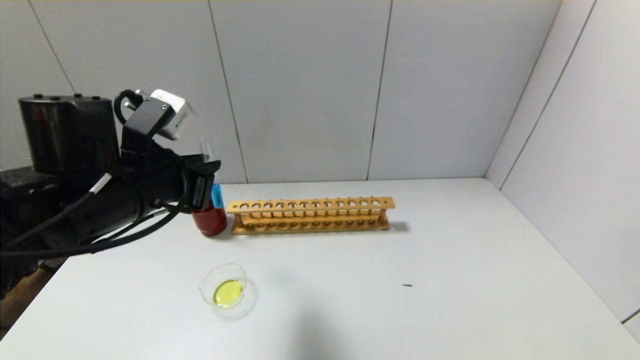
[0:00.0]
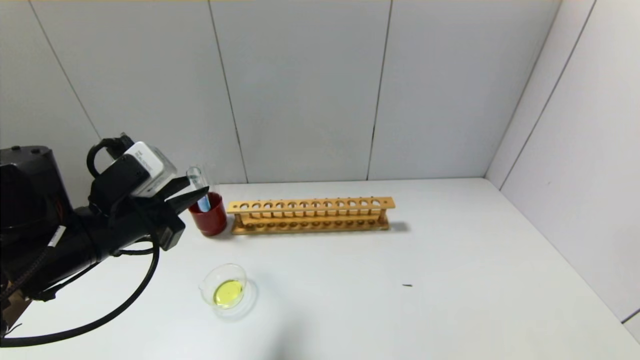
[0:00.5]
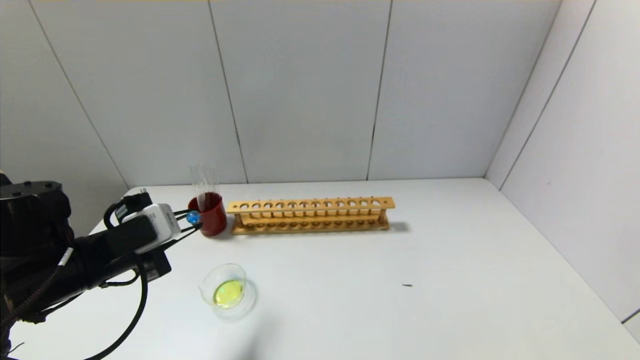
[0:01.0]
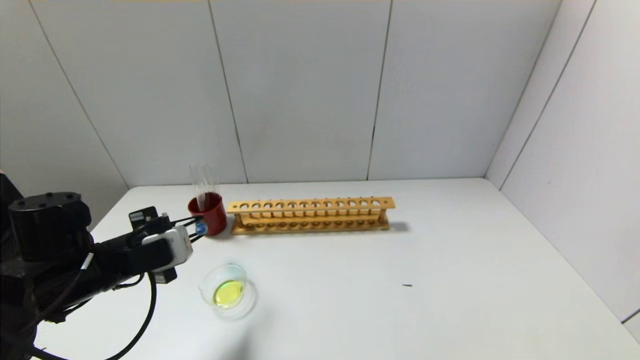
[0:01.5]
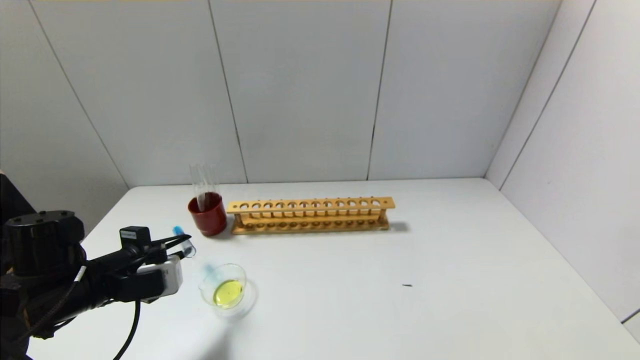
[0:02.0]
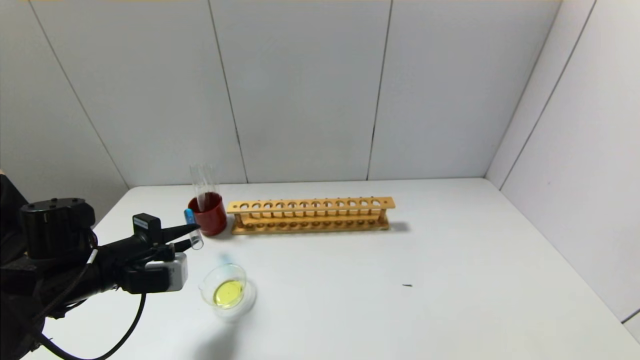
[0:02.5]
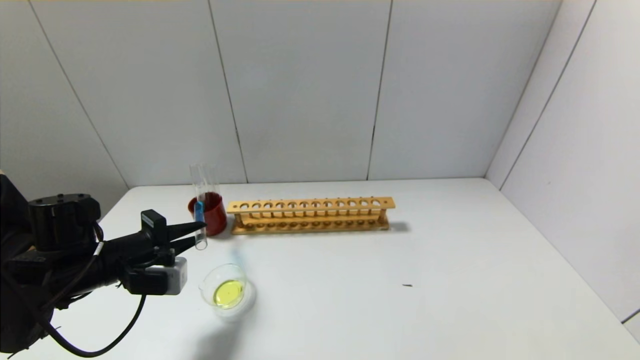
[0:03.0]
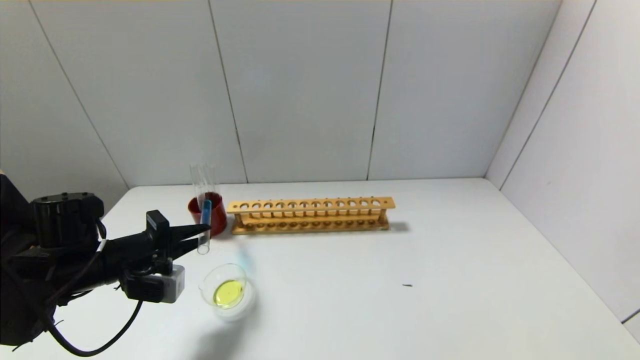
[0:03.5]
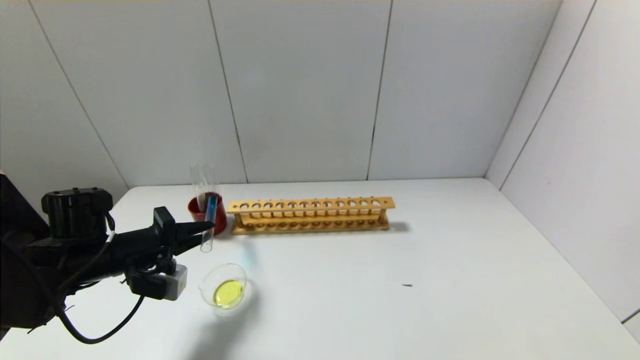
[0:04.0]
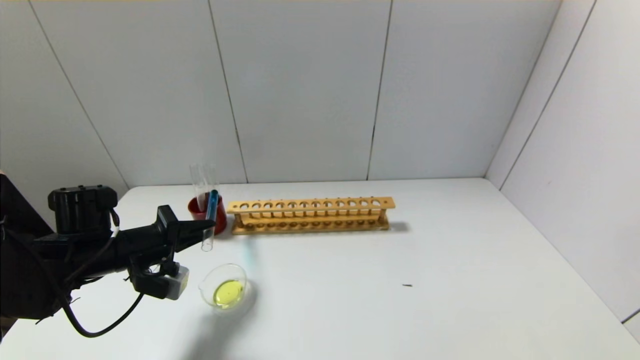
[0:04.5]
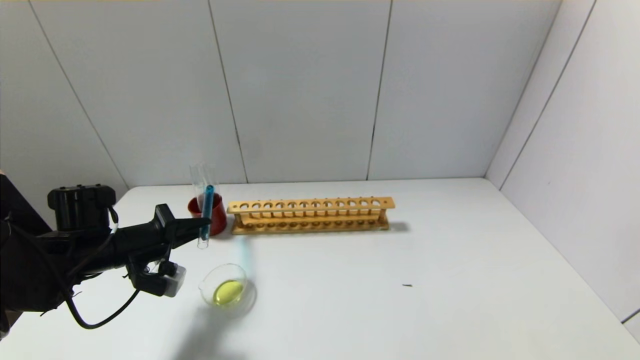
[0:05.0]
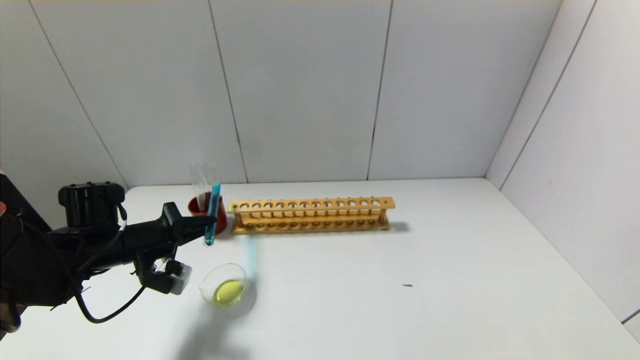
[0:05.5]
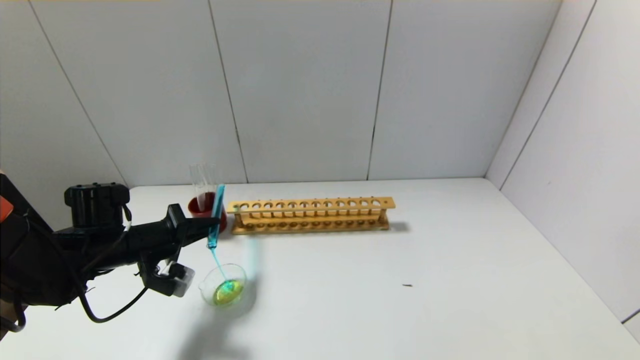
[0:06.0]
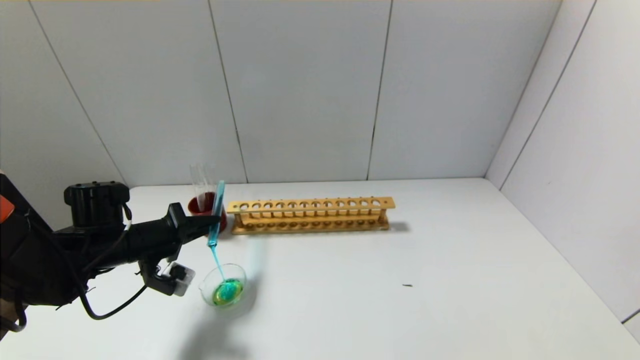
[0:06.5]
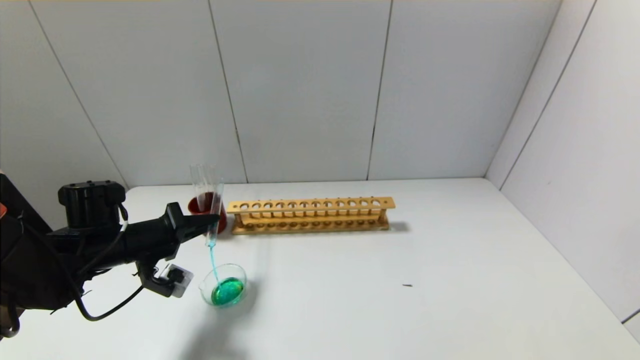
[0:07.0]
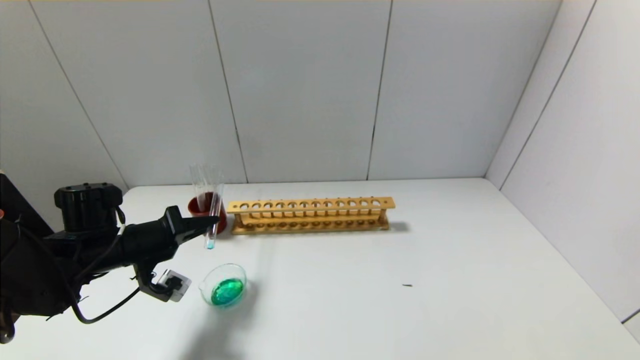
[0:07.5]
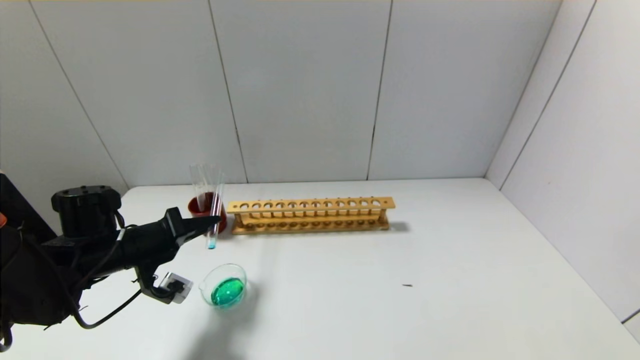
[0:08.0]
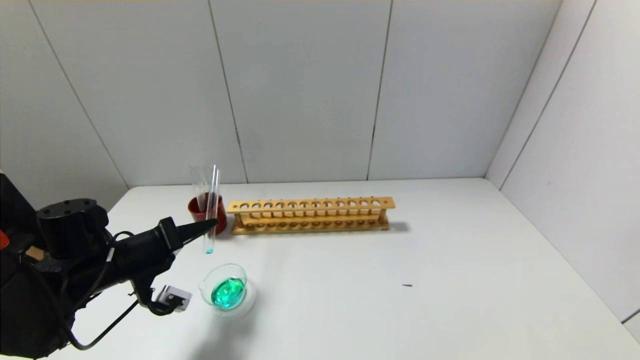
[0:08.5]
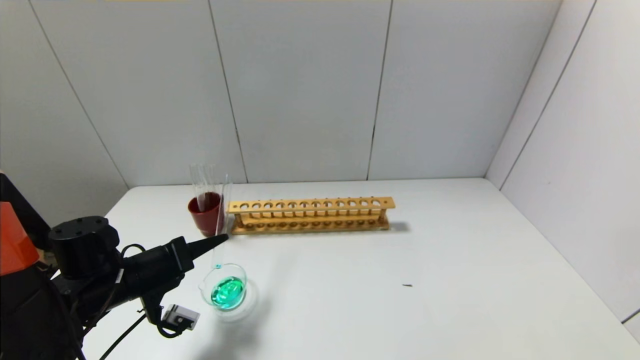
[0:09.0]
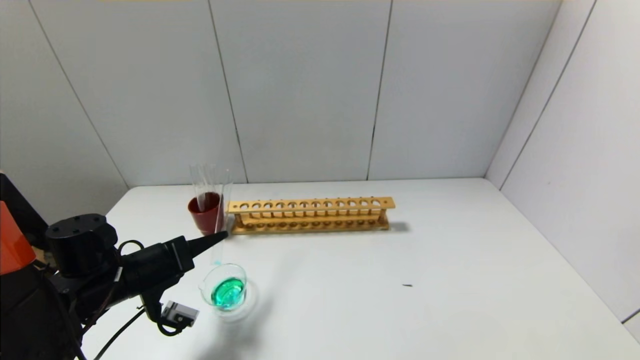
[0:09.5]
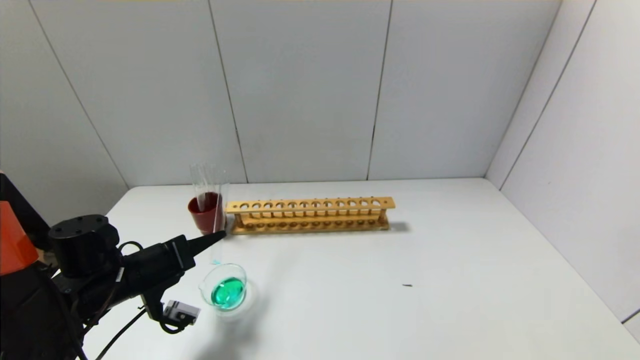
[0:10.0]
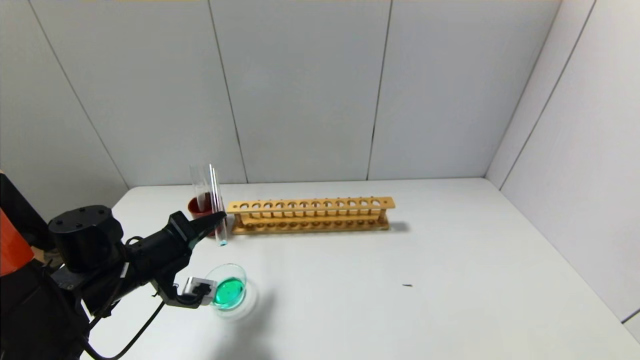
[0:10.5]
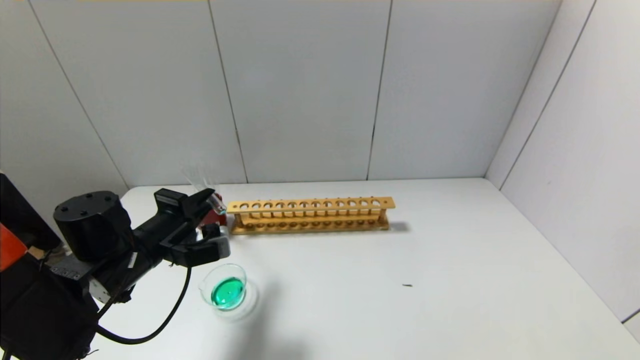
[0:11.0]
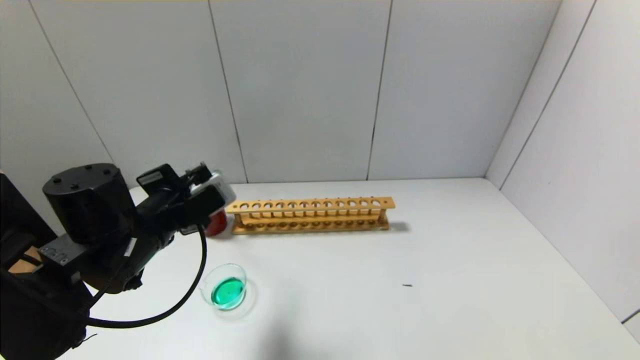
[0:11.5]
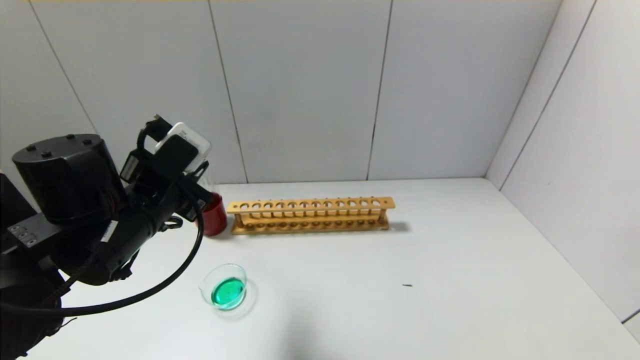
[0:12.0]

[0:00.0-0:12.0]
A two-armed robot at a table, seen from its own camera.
Step, 0:00.0 to 0:10.5: Pour the blue reagent into the graduated cylinder with the left gripper.
0:00.0 to 0:02.0: The left gripper moves downward and to the left, roughly 15 cm.
0:02.0 to 0:04.0: The left gripper shifts roughly 5 cm forward.
0:04.0 to 0:06.0: There are only small adjustments of the grippers.
0:06.0 to 0:08.0: The grippers stay close to where they were, moving slightly.
0:08.0 to 0:10.0: The grippers stay close to where they were, moving slightly.
0:10.0 to 0:12.0: The left gripper is displaced upward and to the right by approximately 15 cm.

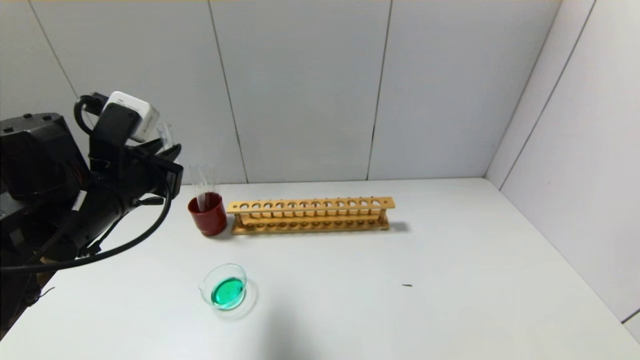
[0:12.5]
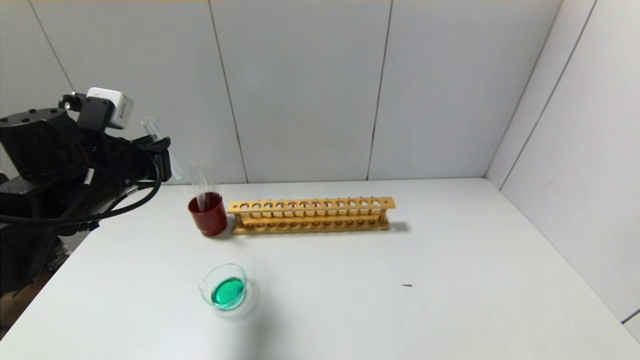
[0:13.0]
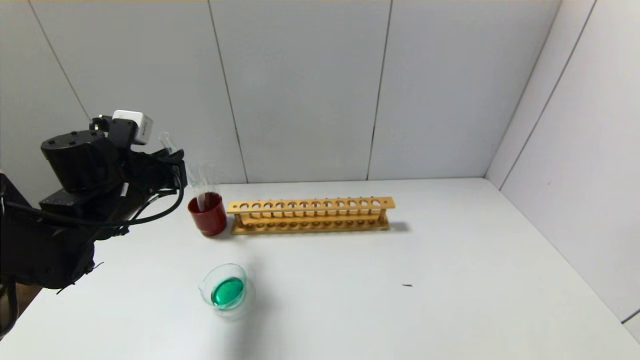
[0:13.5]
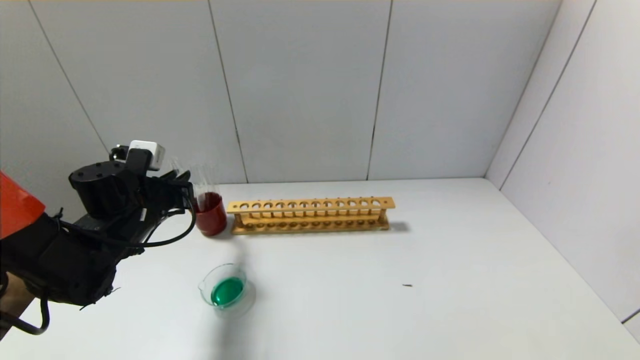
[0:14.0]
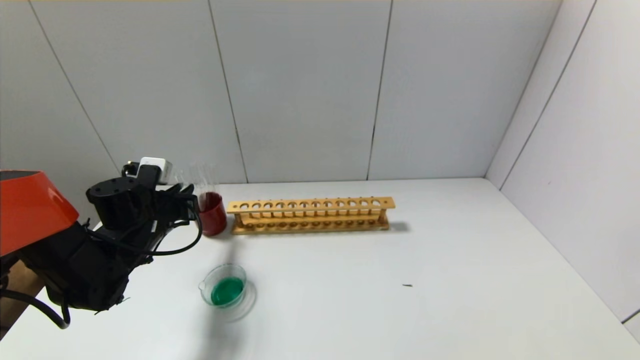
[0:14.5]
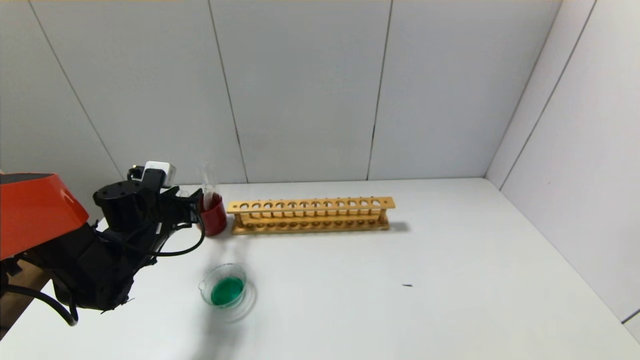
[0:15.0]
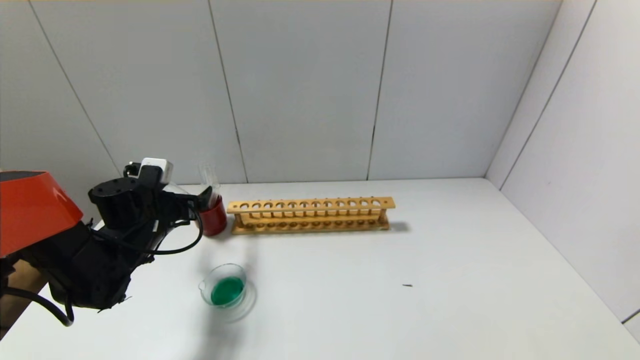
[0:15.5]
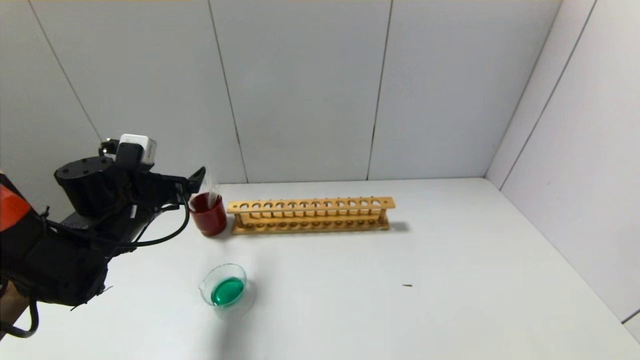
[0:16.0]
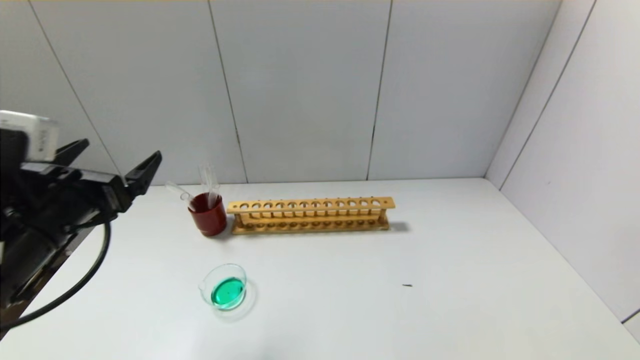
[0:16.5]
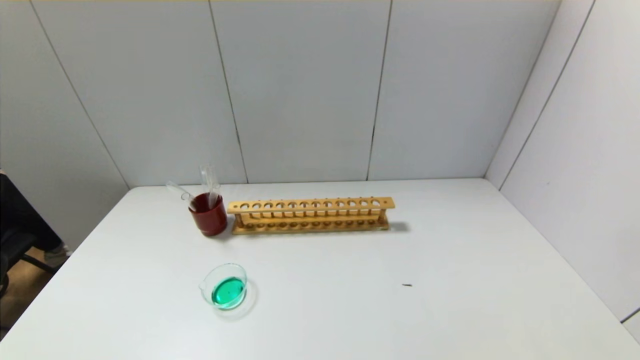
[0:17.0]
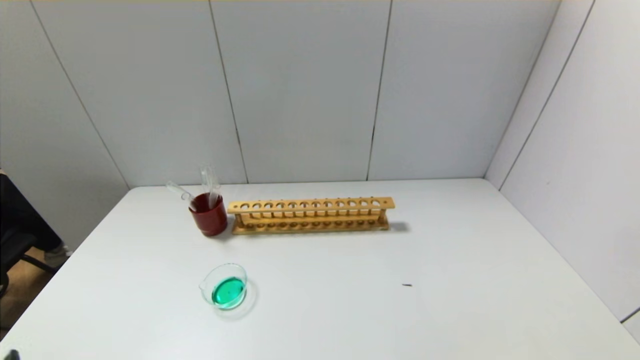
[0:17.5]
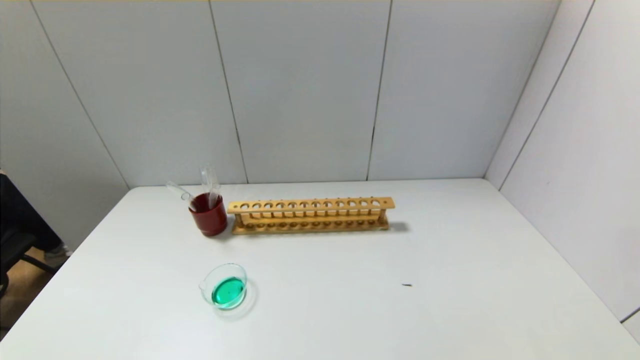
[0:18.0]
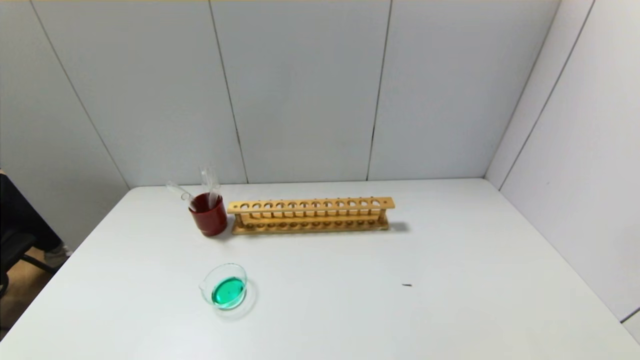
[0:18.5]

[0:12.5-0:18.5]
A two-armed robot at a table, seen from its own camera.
Step, 0:12.5 to 0:15.0: Place the test tube into the brown cup with the left gripper.
0:12.5 to 0:14.5: The left gripper heads downward and forward, covering roughly 15 cm.
0:14.5 to 0:16.5: The left gripper shifts about 20 cm backward and upward, and opens its fingers.
0:16.5 to 0:18.5: The left gripper moves backward and downward, some 25 cm.

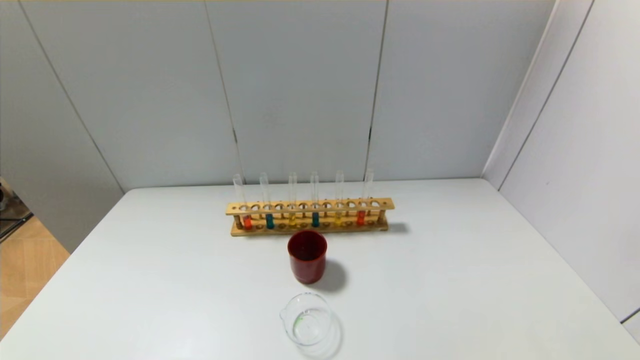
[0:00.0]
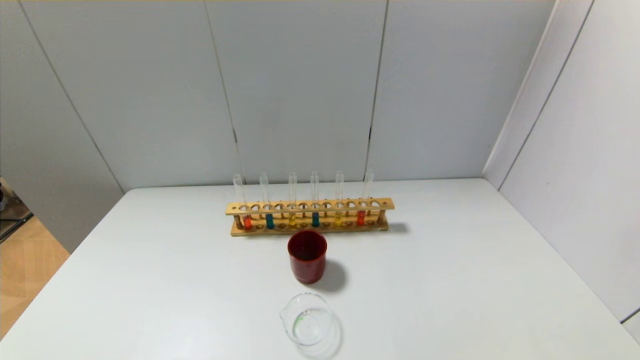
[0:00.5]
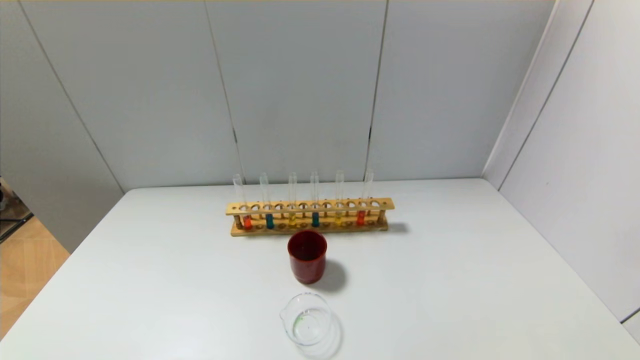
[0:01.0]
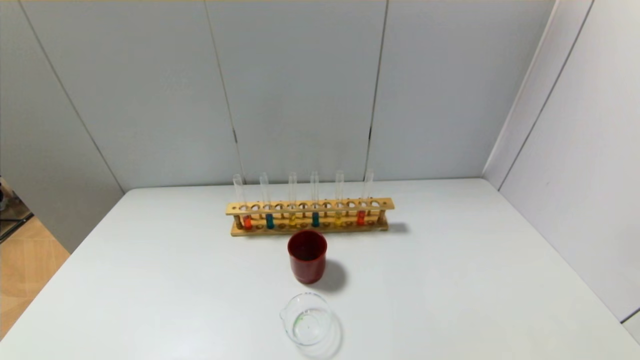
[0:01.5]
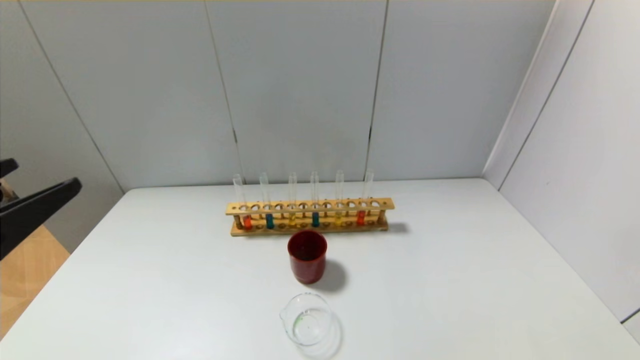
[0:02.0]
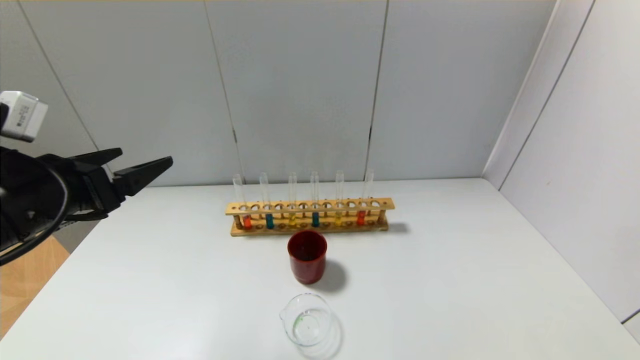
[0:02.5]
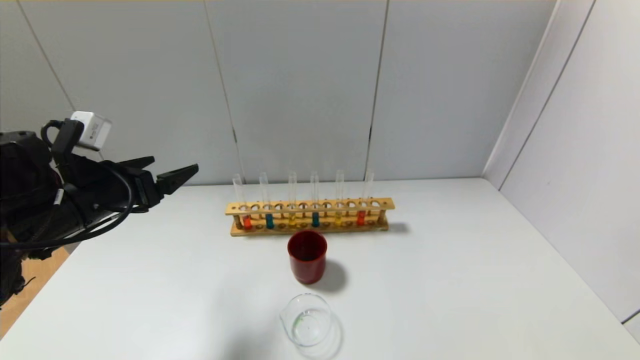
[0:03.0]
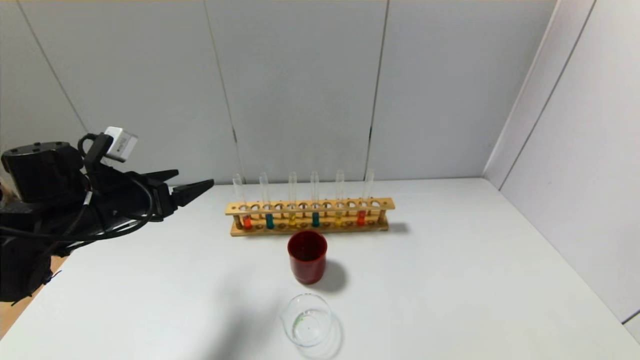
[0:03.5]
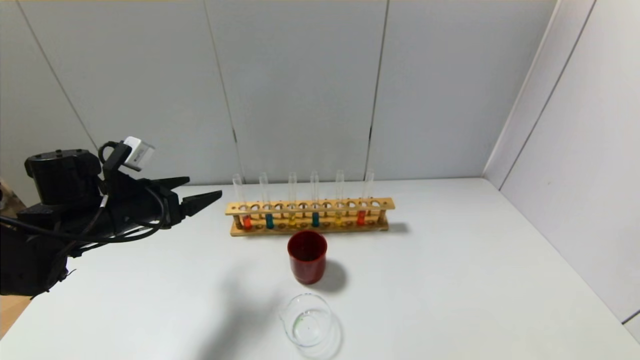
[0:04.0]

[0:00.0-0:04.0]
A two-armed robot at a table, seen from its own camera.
0:00.0 to 0:02.0: The left gripper heads upward and forward, covering approximately 20 cm.
0:02.0 to 0:04.0: The left gripper heads forward and downward, covering approximately 25 cm.
